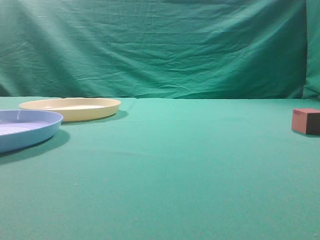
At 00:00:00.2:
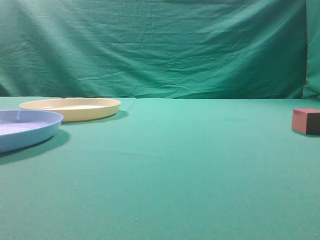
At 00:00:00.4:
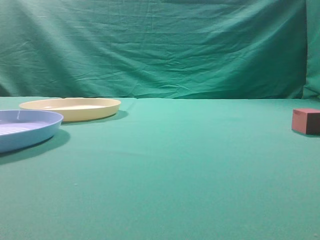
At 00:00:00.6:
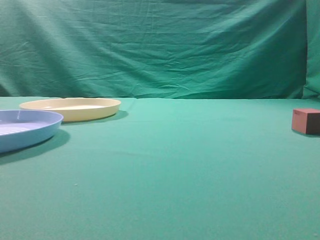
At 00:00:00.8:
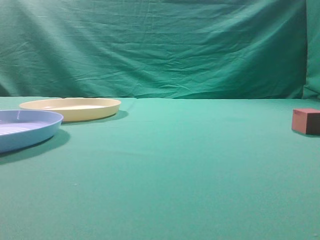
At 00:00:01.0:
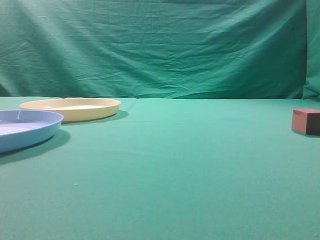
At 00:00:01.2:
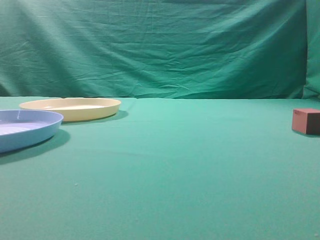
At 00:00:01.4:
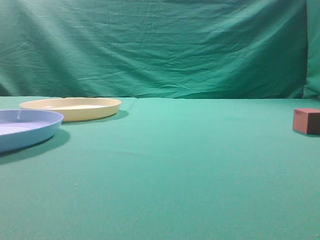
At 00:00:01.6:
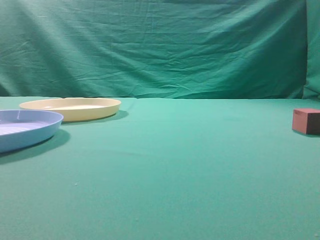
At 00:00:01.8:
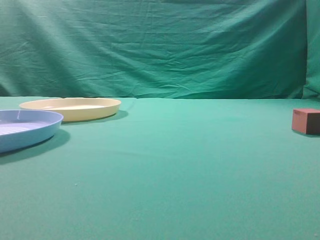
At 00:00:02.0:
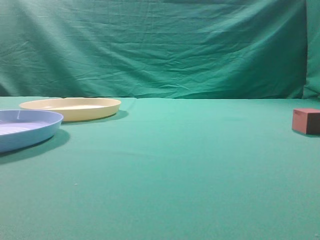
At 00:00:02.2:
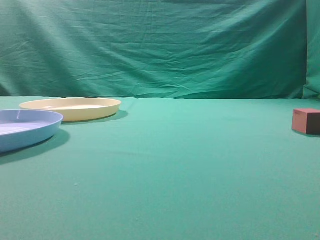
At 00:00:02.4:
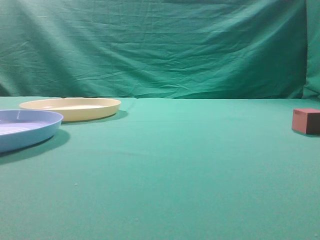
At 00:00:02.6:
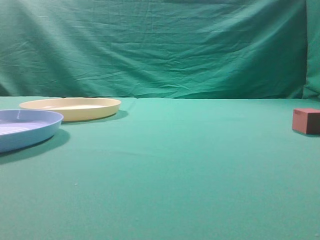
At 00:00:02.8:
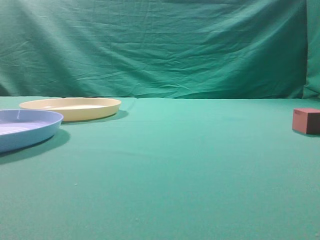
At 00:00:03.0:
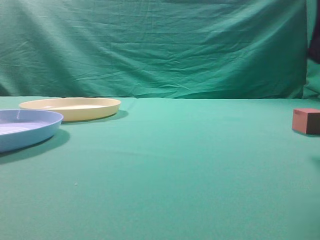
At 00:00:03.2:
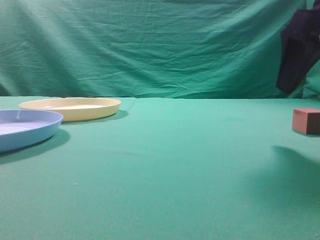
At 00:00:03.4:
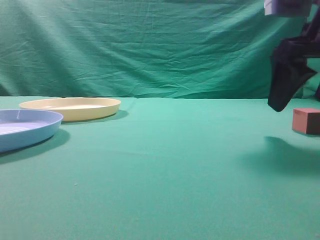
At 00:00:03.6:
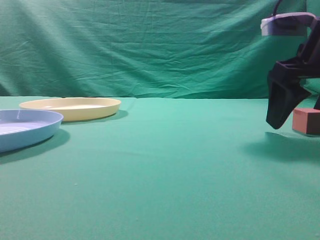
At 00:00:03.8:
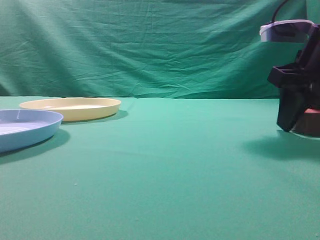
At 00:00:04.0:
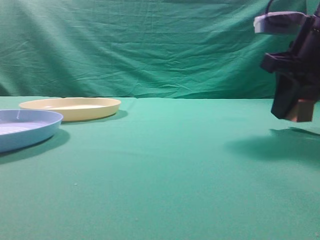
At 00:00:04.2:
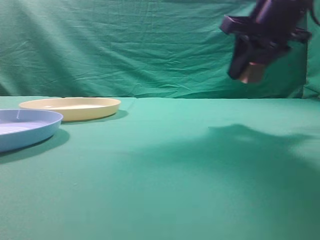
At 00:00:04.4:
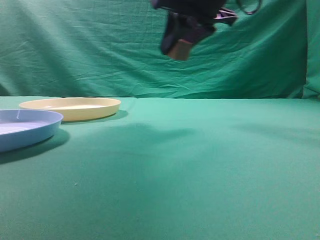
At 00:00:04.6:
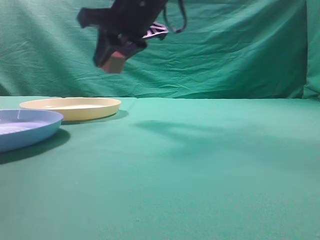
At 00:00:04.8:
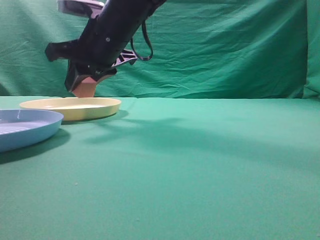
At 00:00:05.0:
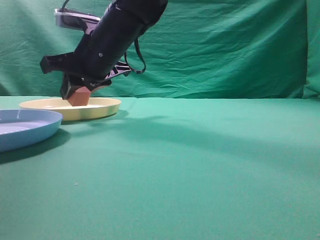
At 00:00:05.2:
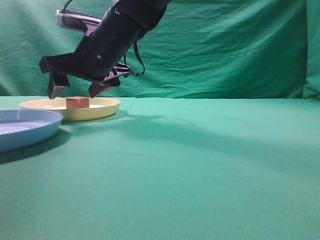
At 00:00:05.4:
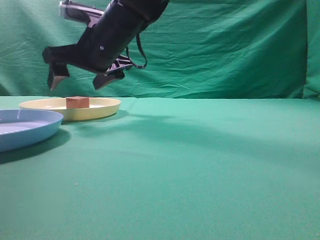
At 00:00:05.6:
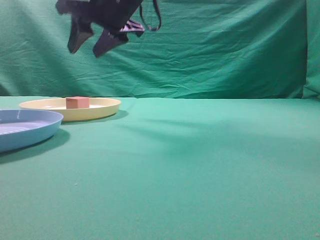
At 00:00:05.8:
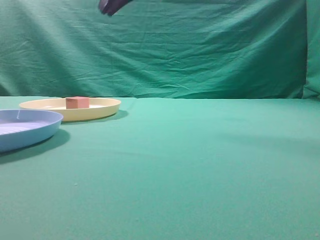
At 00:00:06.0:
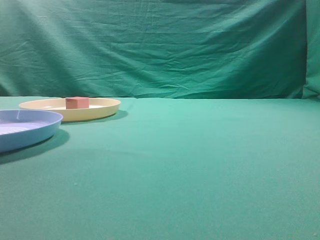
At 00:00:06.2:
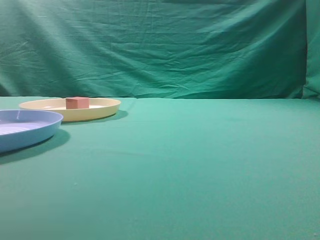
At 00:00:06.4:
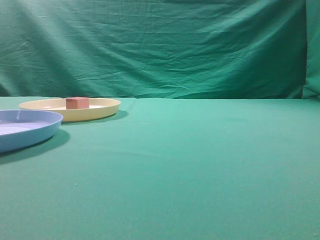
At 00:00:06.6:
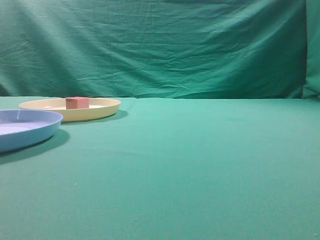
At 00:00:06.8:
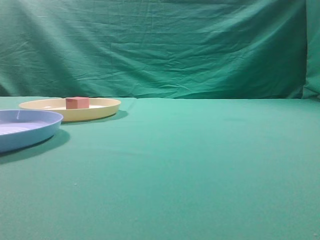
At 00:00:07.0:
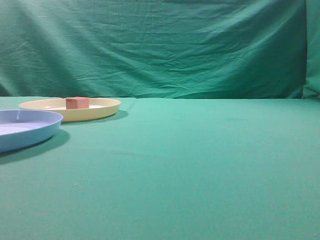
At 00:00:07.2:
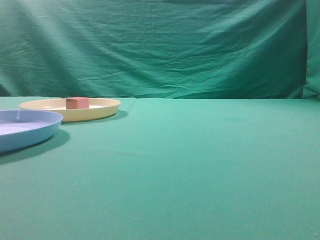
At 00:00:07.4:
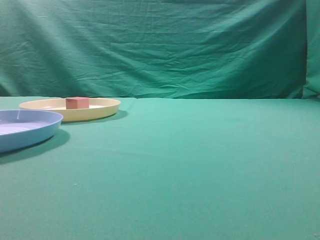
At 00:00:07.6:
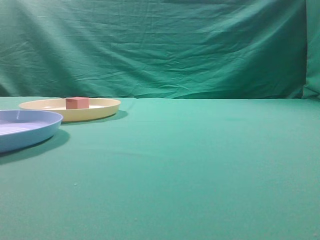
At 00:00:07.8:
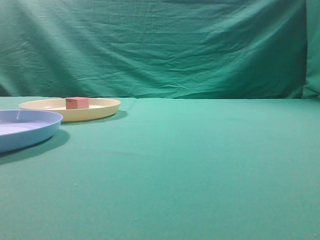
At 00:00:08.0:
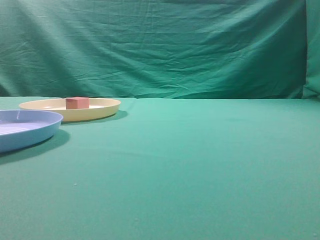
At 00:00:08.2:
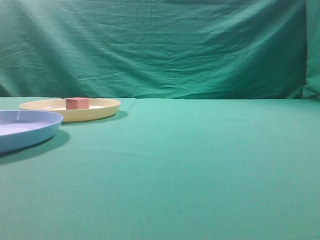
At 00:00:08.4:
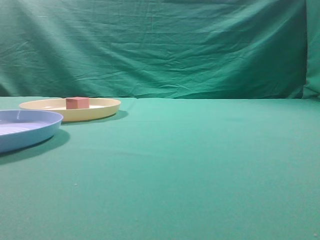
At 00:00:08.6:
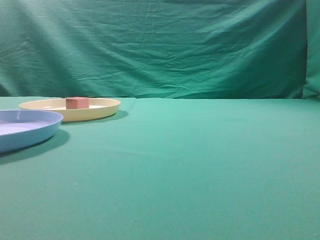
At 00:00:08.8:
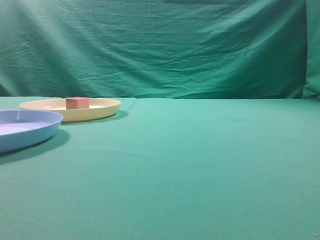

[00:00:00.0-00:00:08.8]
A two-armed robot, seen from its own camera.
Task of the whole recording: pick up the cube block from the table and put it on the plate.
Step, 00:00:00.0 to 00:00:04.0: Grasp the small cube on the table.
Step, 00:00:04.2 to 00:00:05.4: Place it into the yellow plate.
00:00:01.4 to 00:00:03.0: The right gripper is displaced forward by roughly 20 cm, and opens its fingers.
00:00:03.0 to 00:00:04.4: The right gripper goes roughly 20 cm to the left and forward, and closes up.
00:00:04.4 to 00:00:05.8: The right gripper shifts about 10 cm upward and to the left, and opens, then closes again.
